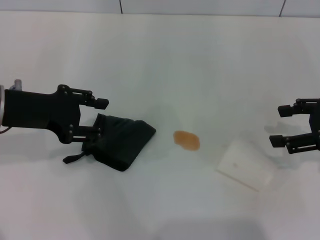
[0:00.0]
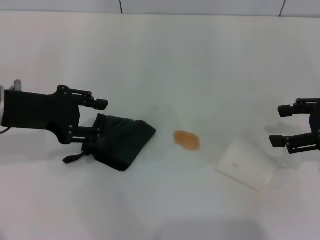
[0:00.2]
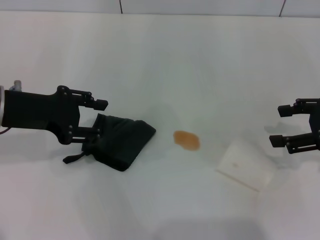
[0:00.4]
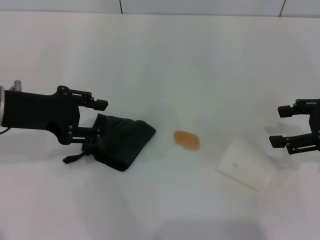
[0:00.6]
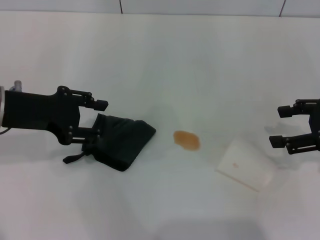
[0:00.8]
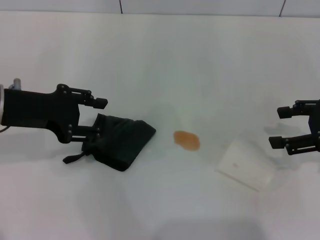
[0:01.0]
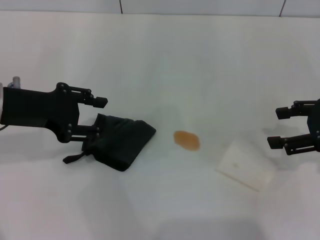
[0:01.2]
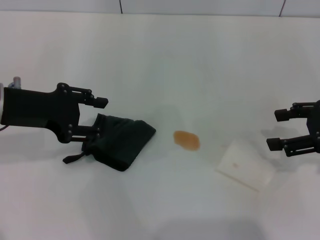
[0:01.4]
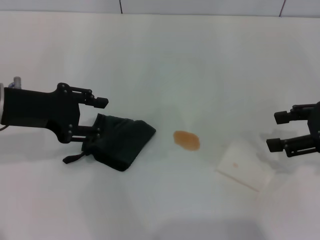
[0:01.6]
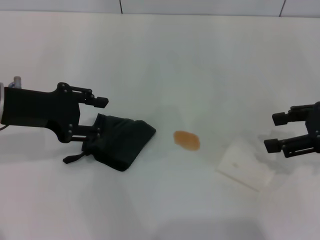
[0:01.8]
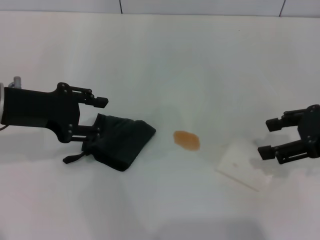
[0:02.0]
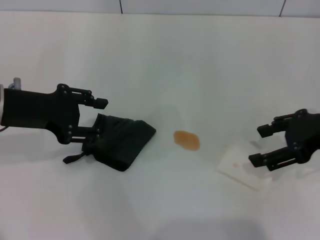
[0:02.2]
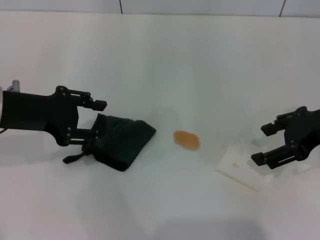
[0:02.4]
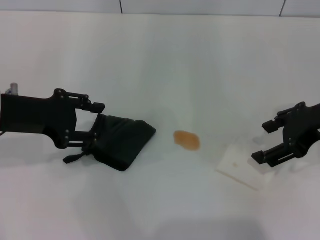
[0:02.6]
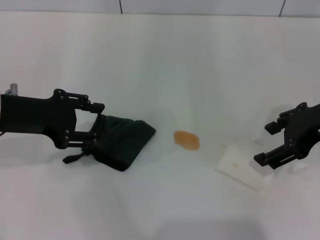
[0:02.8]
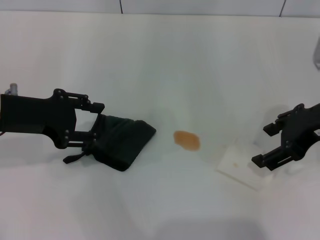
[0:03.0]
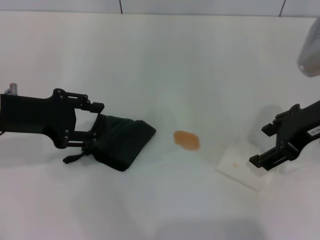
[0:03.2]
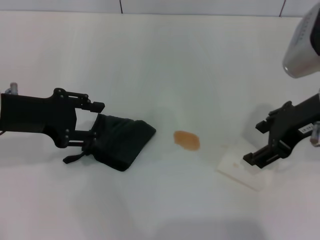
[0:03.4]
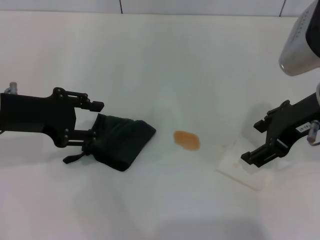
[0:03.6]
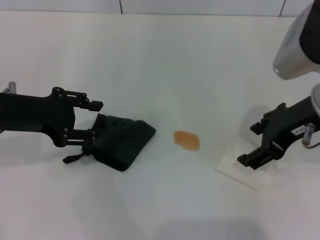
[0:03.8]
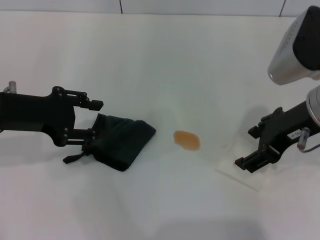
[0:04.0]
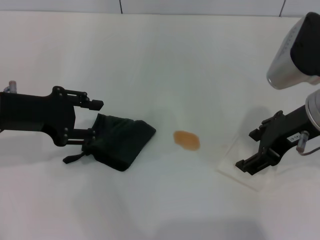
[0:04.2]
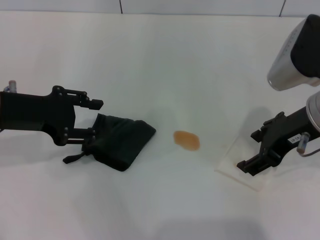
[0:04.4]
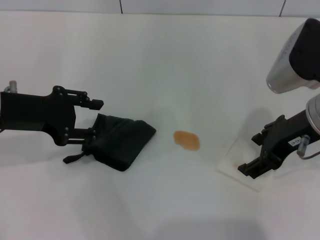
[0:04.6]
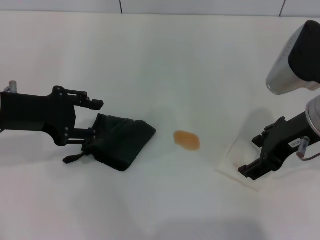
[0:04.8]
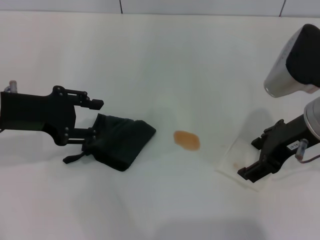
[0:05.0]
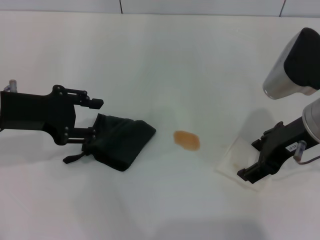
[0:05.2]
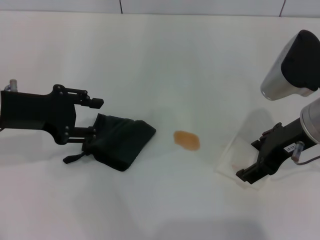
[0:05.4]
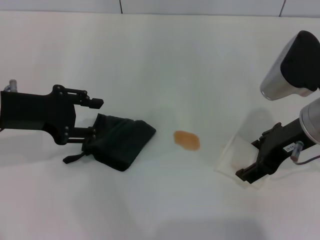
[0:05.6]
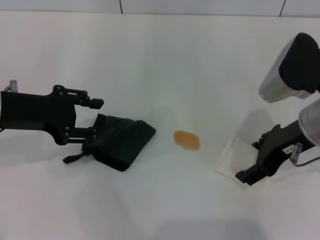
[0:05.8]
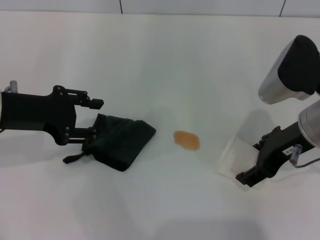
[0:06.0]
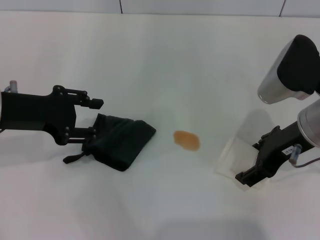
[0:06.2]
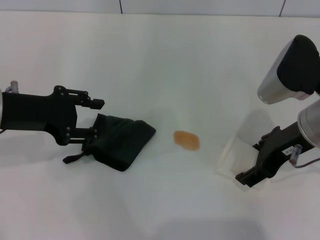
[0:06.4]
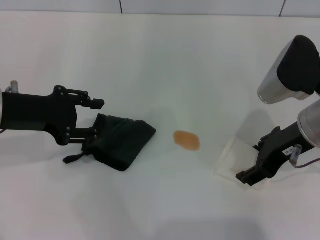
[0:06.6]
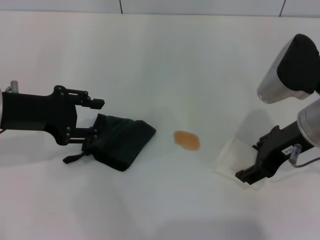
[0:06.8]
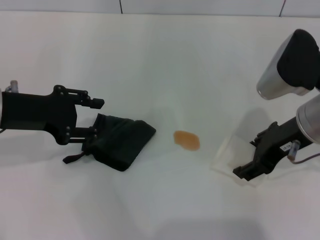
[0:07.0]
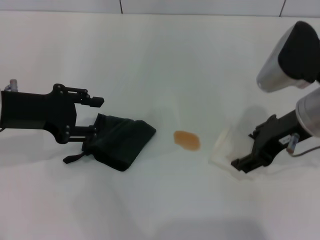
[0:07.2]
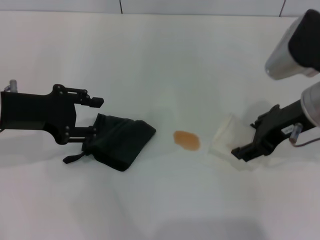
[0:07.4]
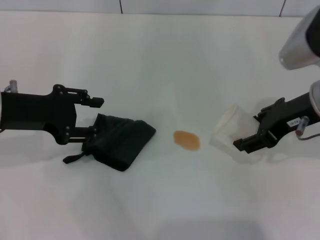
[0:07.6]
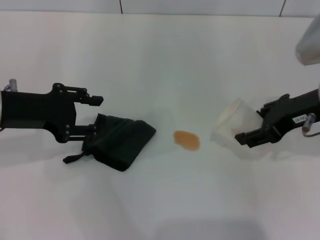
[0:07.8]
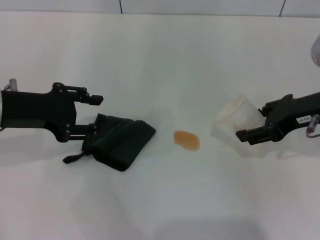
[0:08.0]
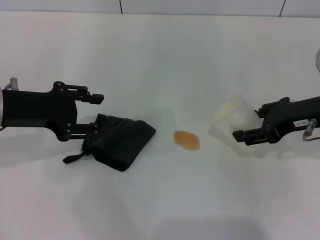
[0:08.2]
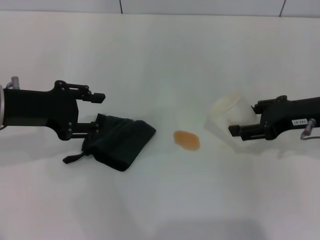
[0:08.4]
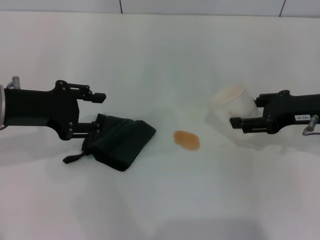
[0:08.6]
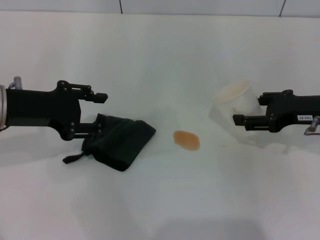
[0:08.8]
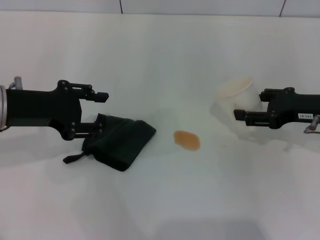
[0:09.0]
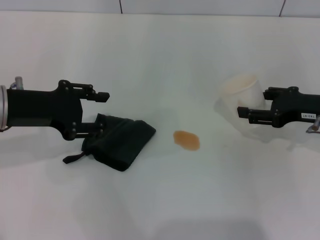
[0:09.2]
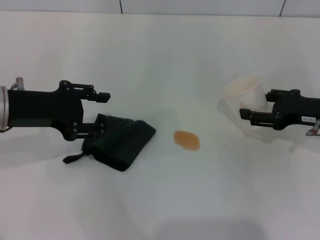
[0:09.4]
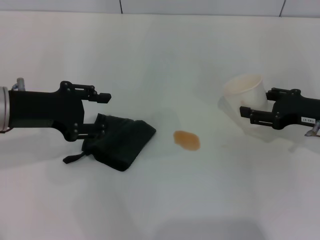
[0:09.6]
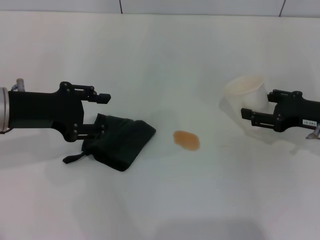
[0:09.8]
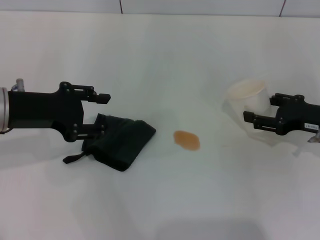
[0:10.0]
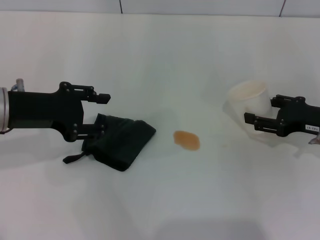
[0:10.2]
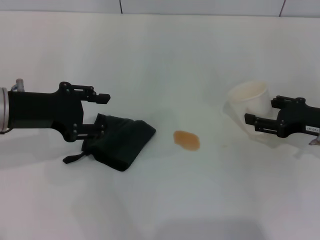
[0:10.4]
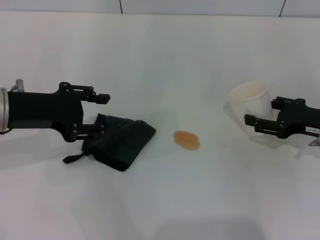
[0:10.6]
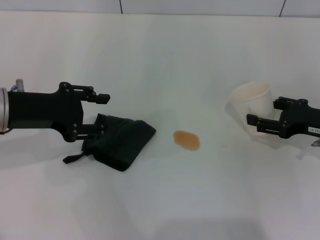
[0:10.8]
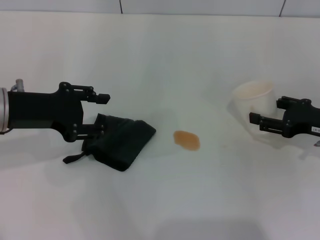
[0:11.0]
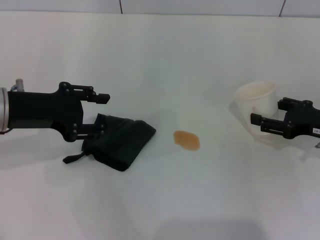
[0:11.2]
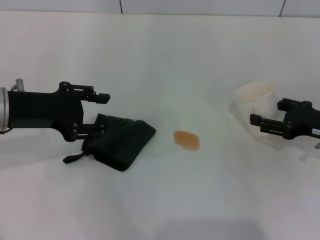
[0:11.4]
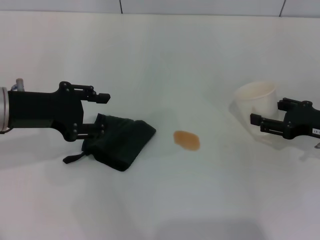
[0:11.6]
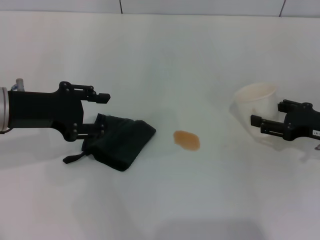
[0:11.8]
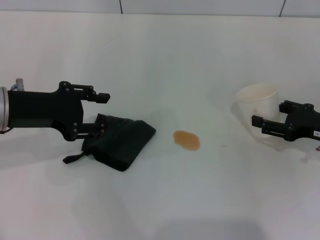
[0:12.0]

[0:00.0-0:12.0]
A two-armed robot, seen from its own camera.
Step, 0:00.0 to 0:06.6: Grasp the paper cup with the right gripper.
0:00.0 to 0:01.6: The grippers move only a little.
0:01.6 to 0:03.0: The right gripper heads to the left, covering approximately 10 cm.
0:03.0 to 0:06.0: The grippers make only small movements.
0:06.0 to 0:07.6: The right gripper closes its fingers.
0:07.6 to 0:09.0: The right gripper moves downward and to the right, some 10 cm.
0:09.0 to 0:10.4: The grippers move only a little.
0:10.4 to 0:12.0: There are only small adjustments of the grippers.

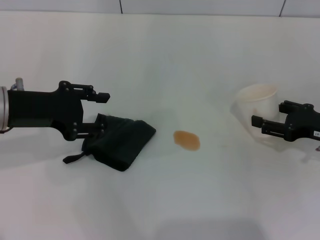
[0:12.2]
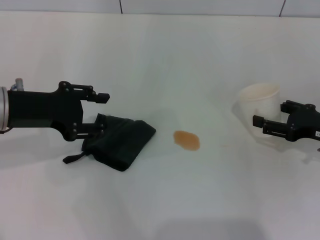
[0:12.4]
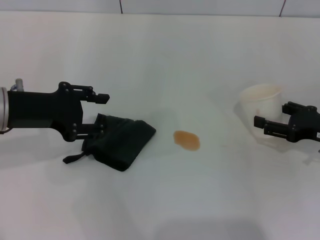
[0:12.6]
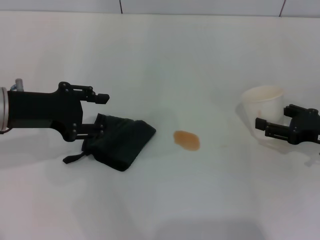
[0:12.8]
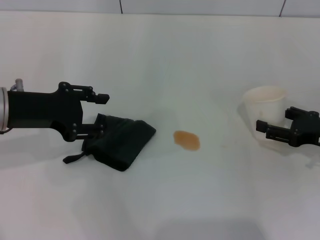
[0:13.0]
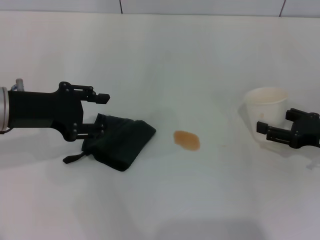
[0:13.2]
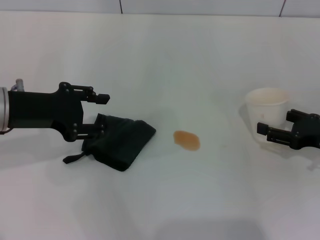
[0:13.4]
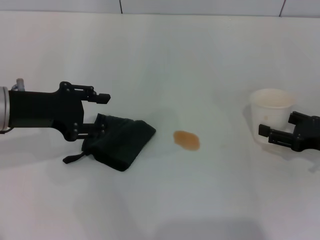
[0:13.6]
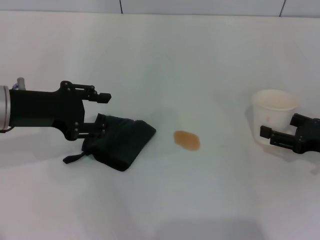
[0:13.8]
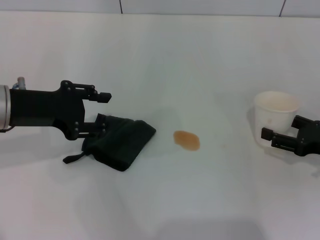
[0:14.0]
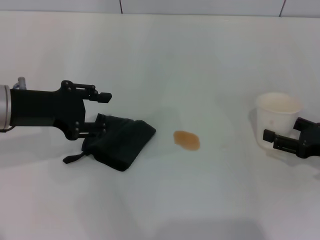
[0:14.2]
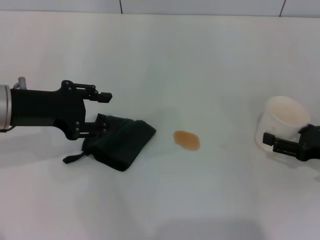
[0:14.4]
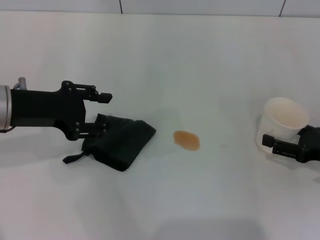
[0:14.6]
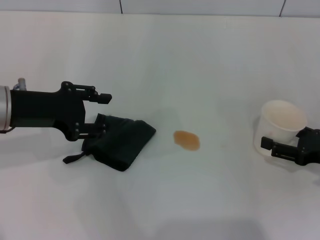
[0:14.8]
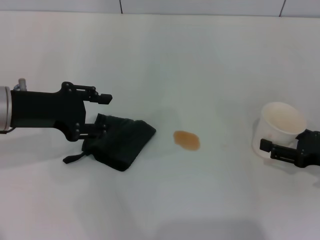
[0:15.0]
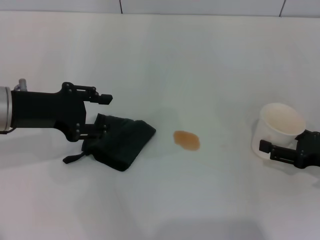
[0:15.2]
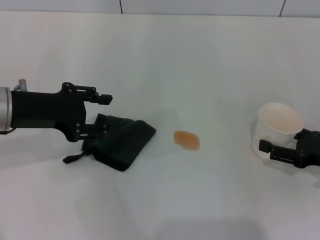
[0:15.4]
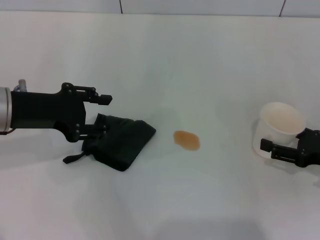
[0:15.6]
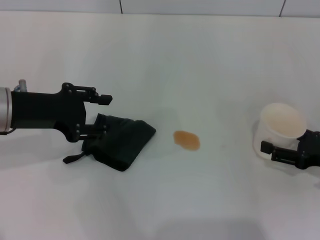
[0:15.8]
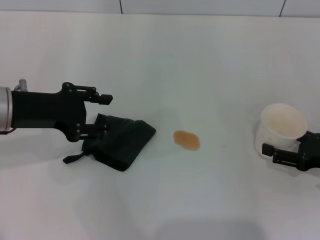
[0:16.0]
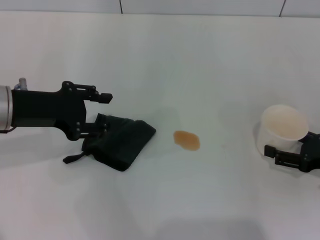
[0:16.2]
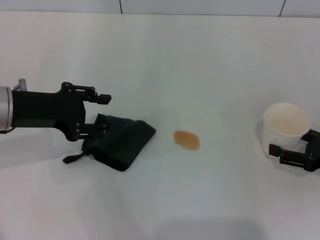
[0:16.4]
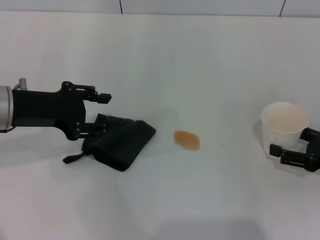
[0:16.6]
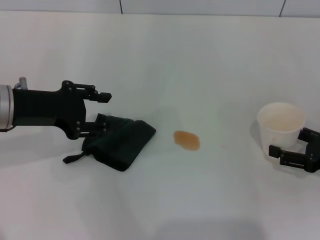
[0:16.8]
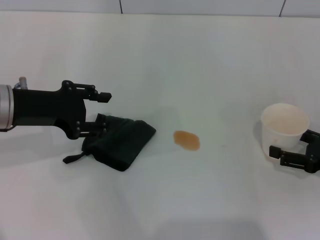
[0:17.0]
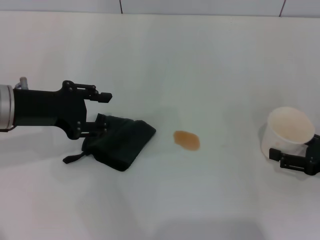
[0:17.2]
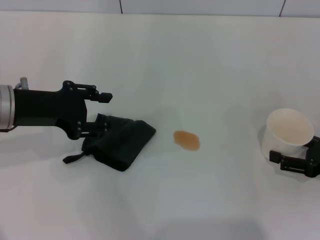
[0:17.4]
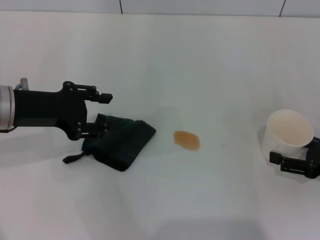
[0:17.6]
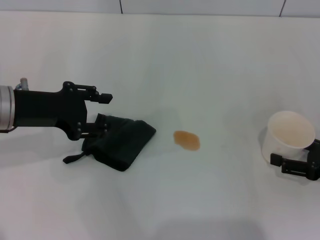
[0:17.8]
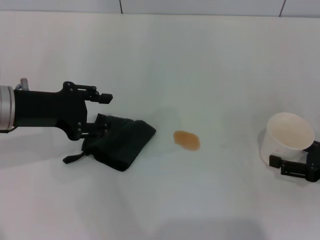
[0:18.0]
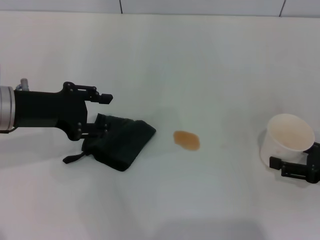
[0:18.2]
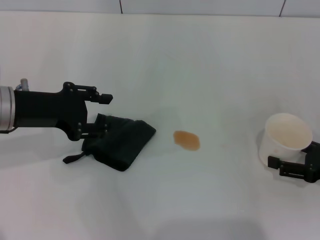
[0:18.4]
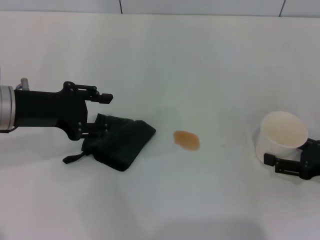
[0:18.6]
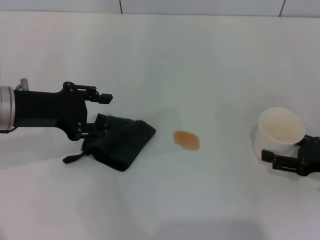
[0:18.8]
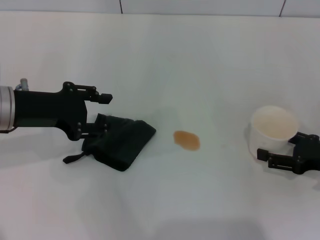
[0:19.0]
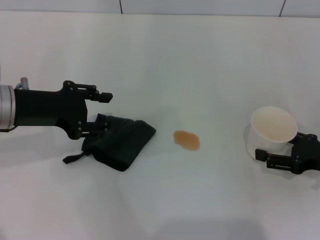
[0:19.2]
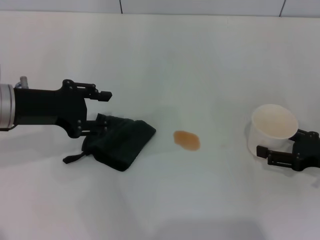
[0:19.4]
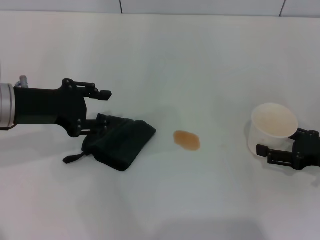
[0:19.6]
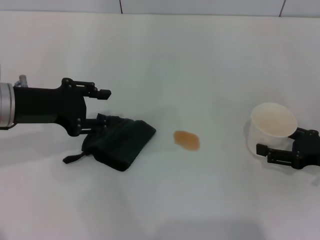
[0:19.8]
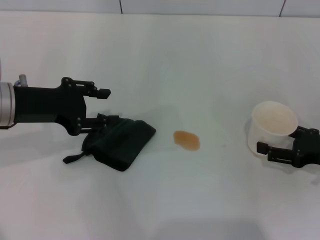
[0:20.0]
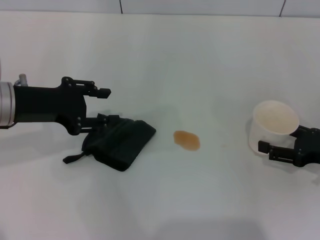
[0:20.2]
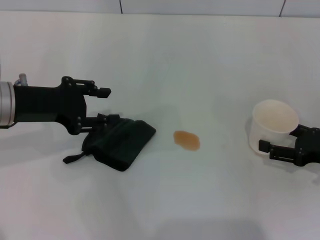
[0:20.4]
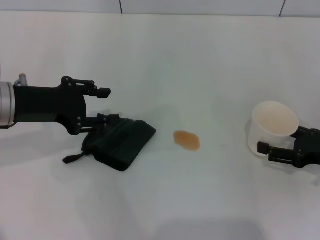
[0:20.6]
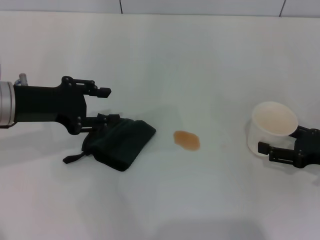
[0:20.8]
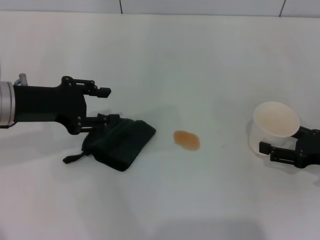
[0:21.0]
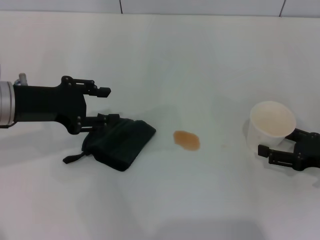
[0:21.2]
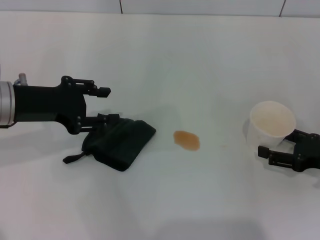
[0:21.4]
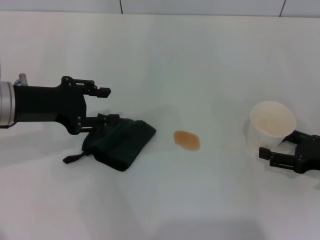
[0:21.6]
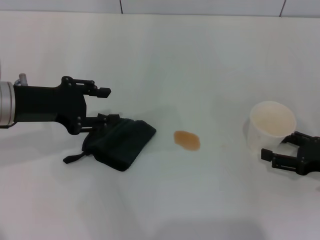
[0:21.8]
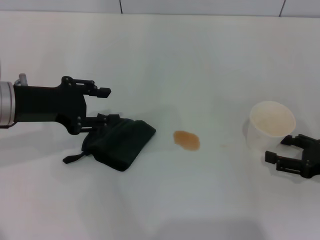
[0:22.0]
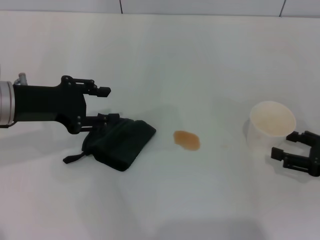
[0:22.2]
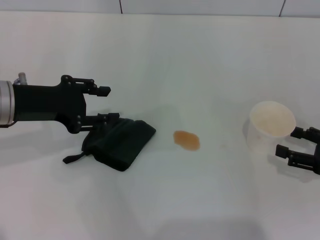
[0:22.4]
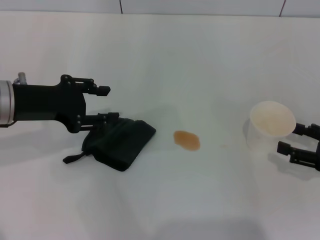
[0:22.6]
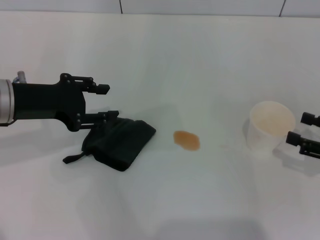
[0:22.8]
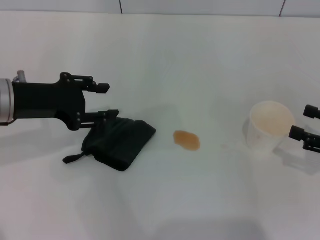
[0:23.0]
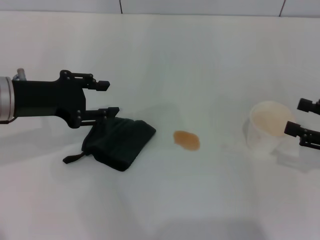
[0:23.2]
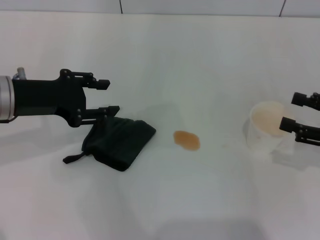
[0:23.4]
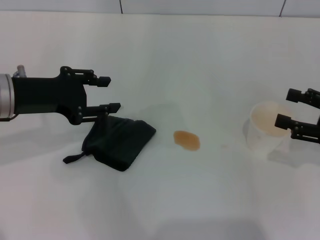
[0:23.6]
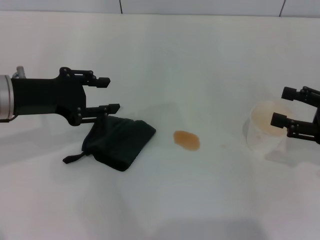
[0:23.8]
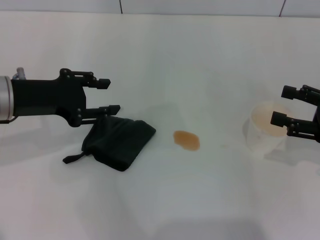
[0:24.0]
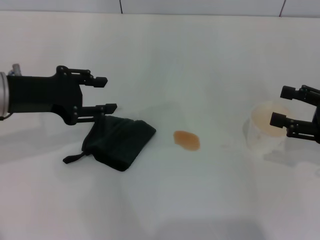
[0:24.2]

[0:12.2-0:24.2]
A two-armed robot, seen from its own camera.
Step, 0:12.2 to 0:22.4: Stand the paper cup upright with the right gripper.
0:12.2 to 0:13.8: The grippers stay close to where they were, moving slightly.
0:13.8 to 0:15.2: The right gripper opens.
0:15.2 to 0:16.6: The grippers stay close to where they were, moving slightly.
0:16.6 to 0:18.2: Neither gripper changes place.
0:18.2 to 0:19.8: The grippers make only small movements.
0:19.8 to 0:21.2: Both grippers stay about where they are.
0:21.2 to 0:22.6: There are only small adjustments of the grippers.
0:22.6 to 0:24.2: The right gripper goes roughly 5 cm upward.
